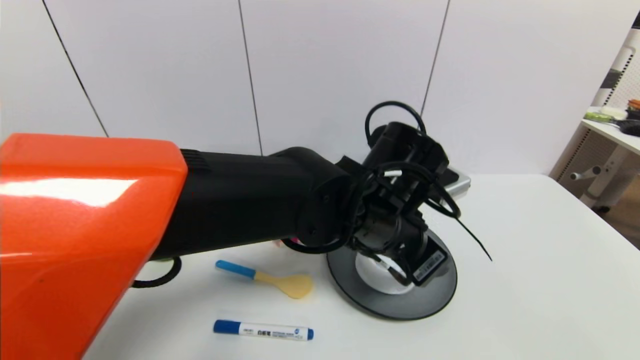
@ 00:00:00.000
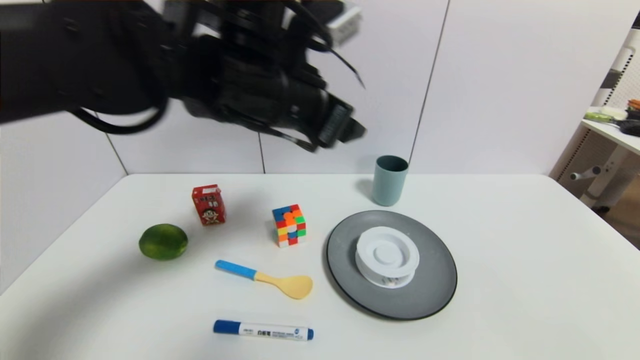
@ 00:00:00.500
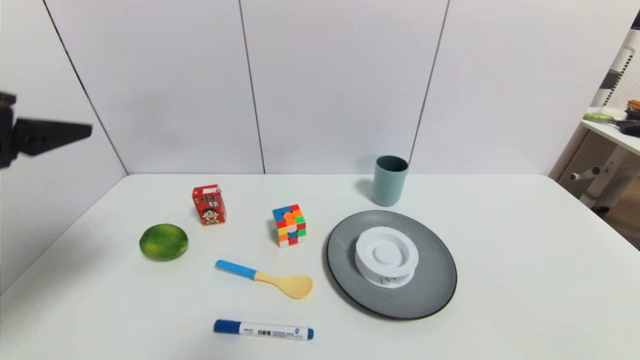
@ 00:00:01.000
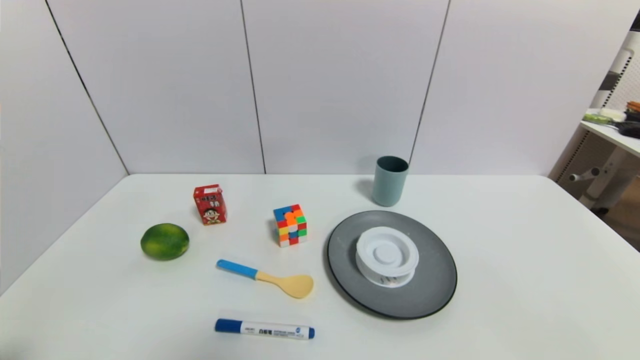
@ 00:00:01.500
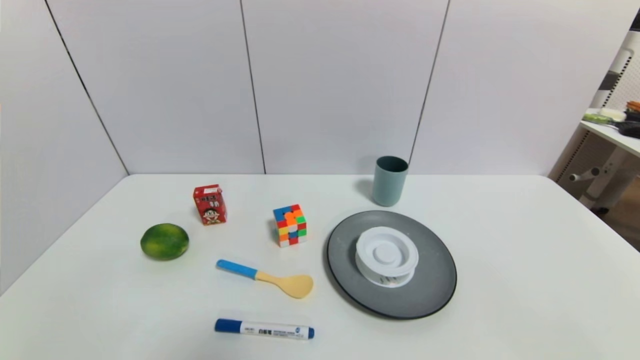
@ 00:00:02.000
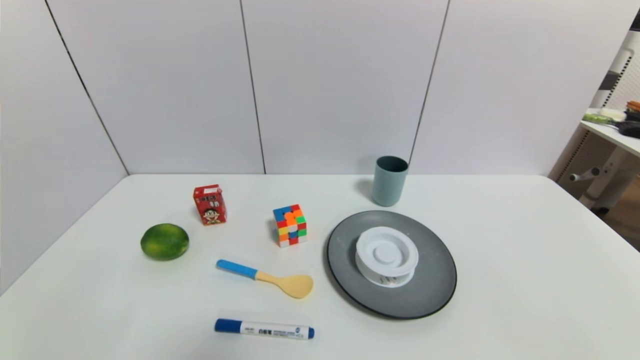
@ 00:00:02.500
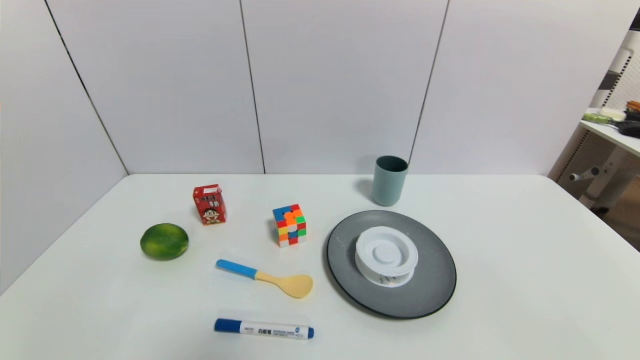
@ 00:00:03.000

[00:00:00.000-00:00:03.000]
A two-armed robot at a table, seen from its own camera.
Task of the whole recording: use a gripper to pick the target object and place on the gray plate.
00:00:00.000 to 00:00:01.500: The left gripper heads to the left and backward, covering approximately 40 cm.
